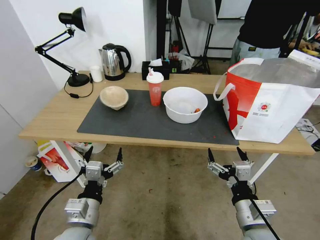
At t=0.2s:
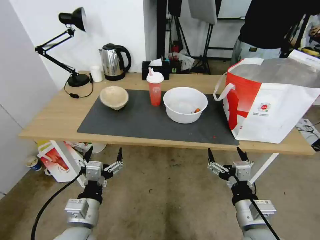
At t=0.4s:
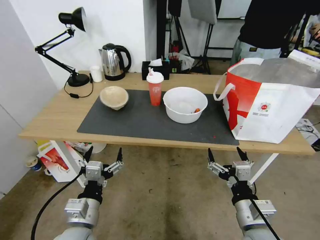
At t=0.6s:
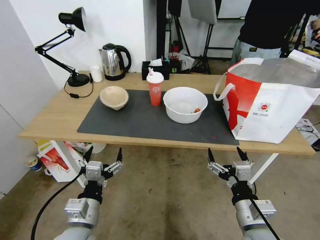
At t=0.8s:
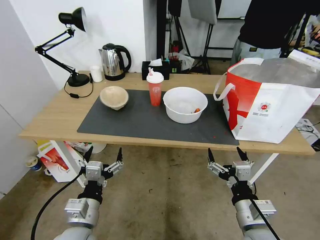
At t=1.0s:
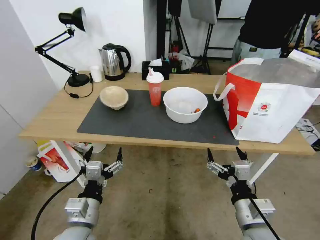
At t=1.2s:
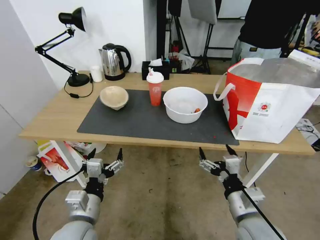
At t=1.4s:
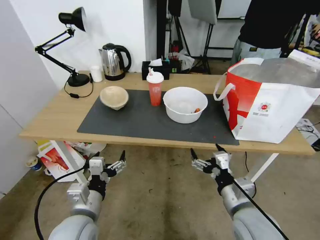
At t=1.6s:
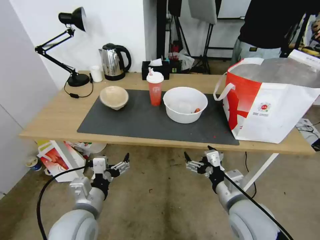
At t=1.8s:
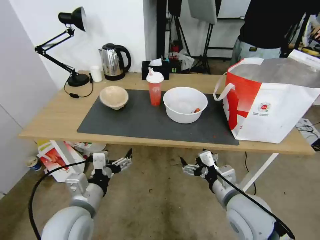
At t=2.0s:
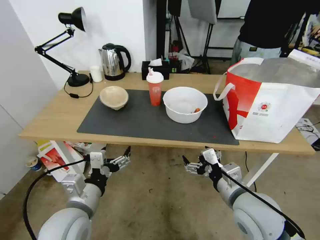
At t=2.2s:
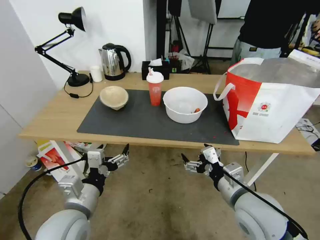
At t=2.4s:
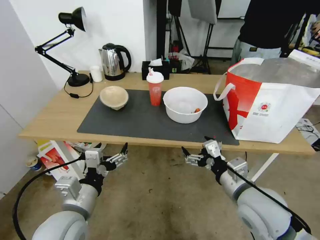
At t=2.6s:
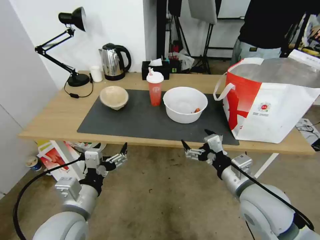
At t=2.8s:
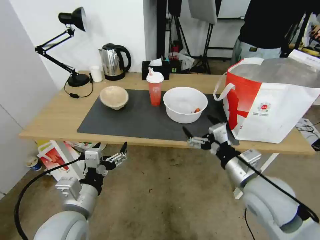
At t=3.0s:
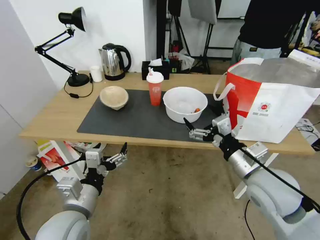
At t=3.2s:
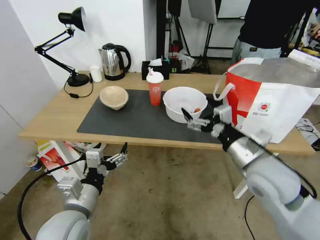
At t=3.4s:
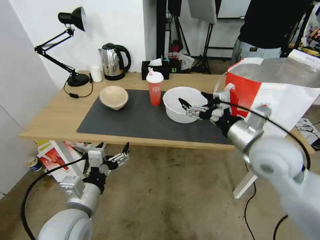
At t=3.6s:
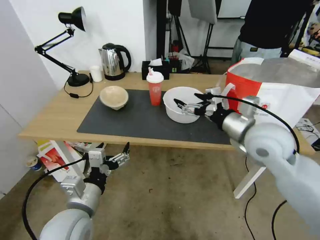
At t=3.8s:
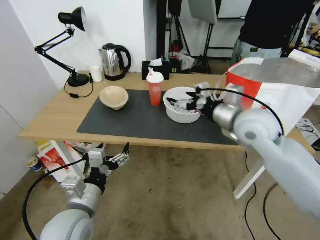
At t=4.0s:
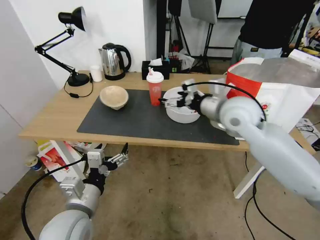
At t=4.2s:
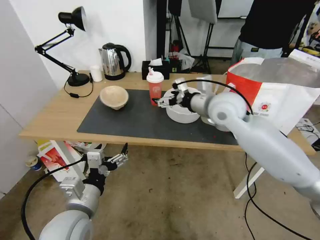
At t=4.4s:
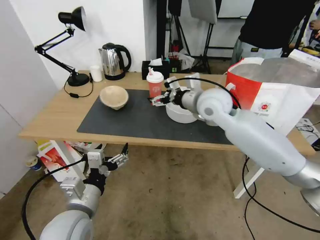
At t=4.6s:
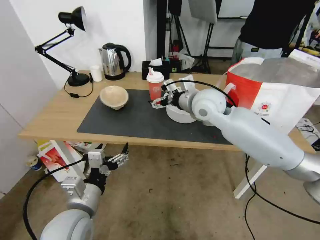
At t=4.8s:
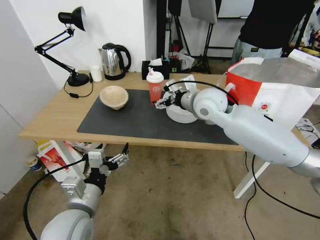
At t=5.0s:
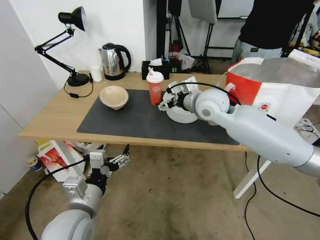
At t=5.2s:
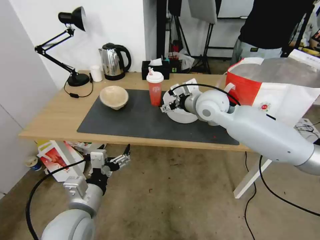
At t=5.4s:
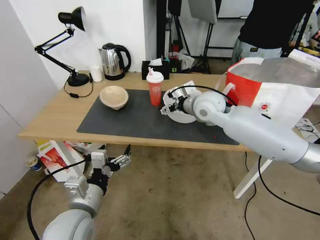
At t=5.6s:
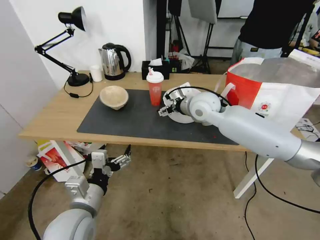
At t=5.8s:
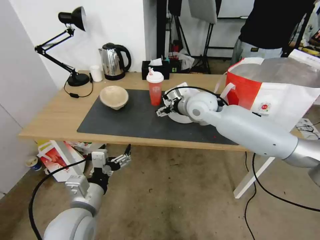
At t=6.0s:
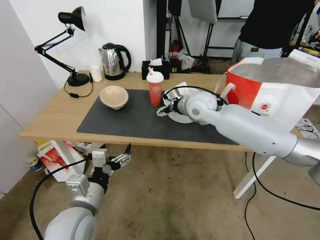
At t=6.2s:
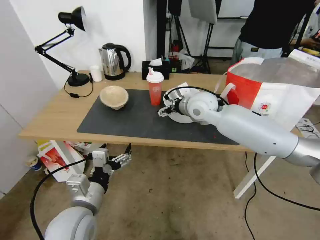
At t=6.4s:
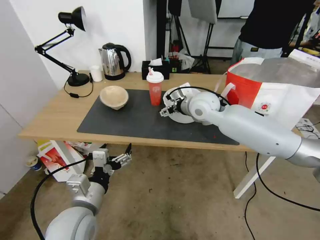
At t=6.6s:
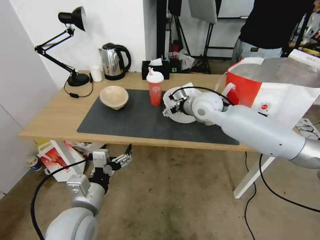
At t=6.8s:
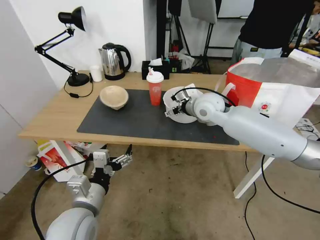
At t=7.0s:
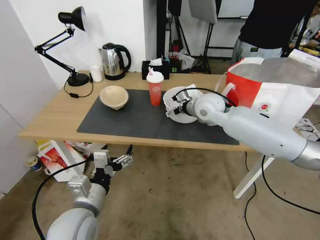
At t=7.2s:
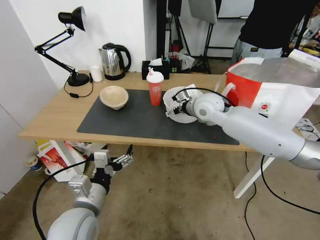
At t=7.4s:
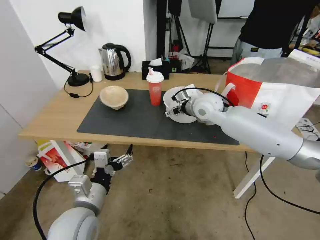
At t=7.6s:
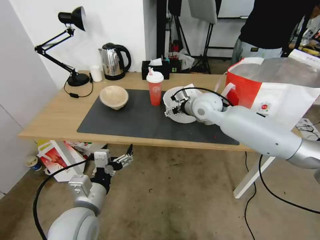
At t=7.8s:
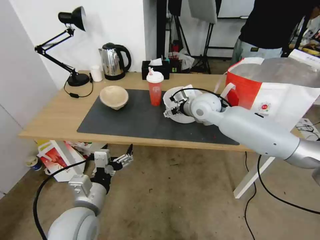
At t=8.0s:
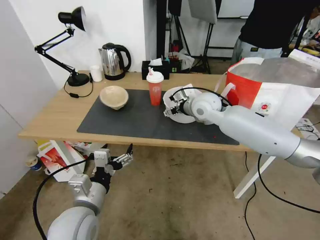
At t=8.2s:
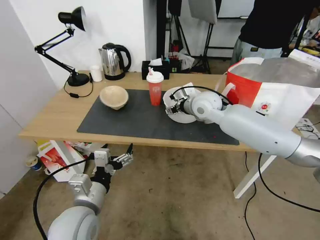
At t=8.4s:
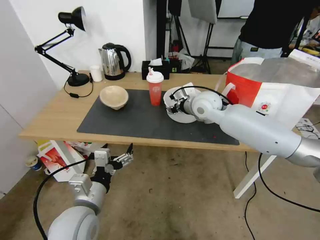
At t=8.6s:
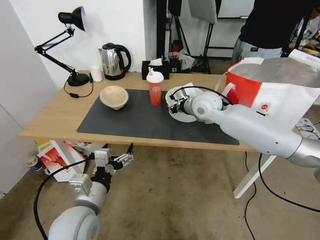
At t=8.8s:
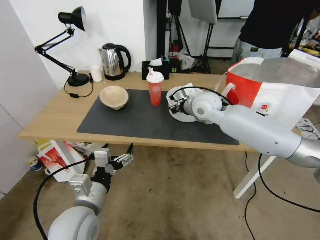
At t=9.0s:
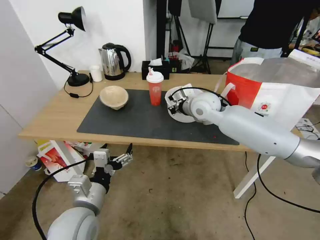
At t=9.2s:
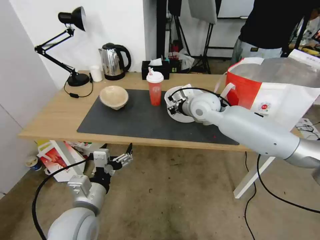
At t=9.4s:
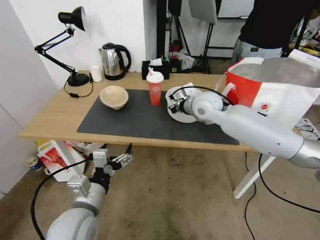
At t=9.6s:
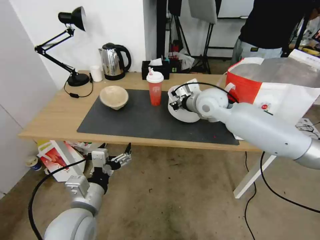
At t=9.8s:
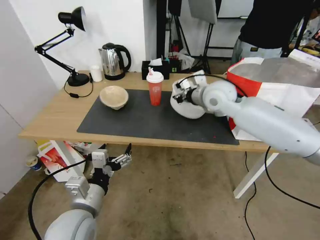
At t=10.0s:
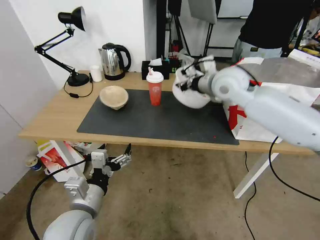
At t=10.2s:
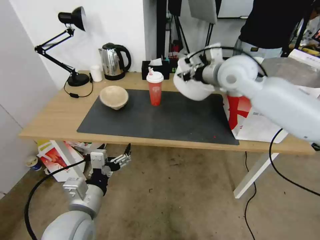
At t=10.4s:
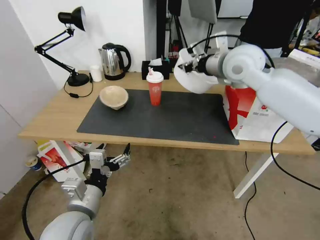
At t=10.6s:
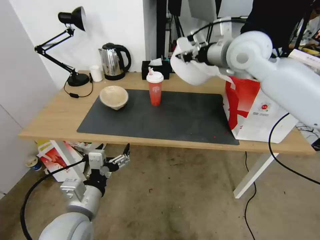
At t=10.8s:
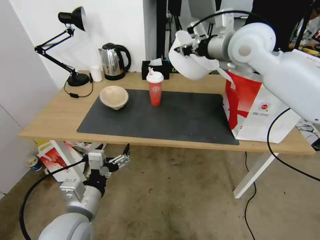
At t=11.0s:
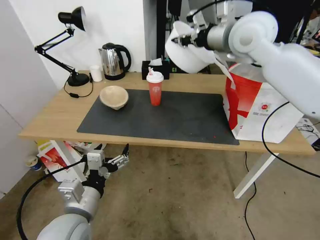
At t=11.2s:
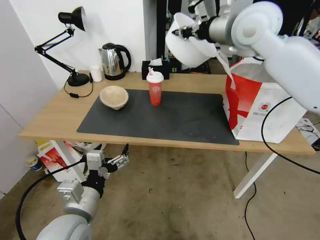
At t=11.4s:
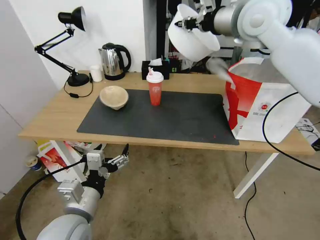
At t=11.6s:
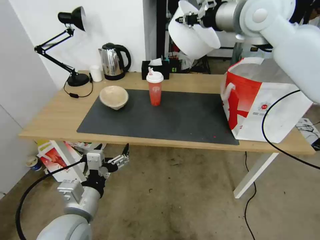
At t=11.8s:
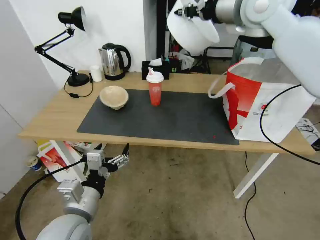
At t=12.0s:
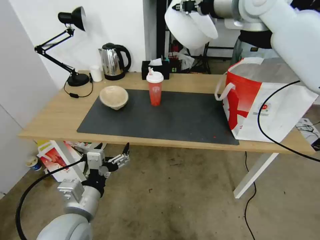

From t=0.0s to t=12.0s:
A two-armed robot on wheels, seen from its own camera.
Task of the whole recording: Pick up the trash from the table and place it into the takeout bag.
From t=1.6s to t=3.0s: The right gripper is displaced upward by some 5 cm.
From t=3.0s to t=4.4s: The right gripper heads forward, to the left and upward, covering some 25 cm.
From t=4.4s to t=6.0s: The right gripper moves approximately 5 cm.
From t=6.0s to t=7.6s: The grippers move only a little.
From t=7.6s to t=9.0s: The right gripper closes up.
From t=9.0s to t=10.4s: The right gripper travels upward by approximately 15 cm.
From t=10.4s to t=12.0s: The right gripper heads upward, covering roughly 15 cm.

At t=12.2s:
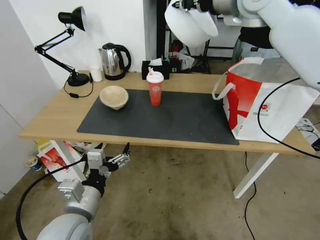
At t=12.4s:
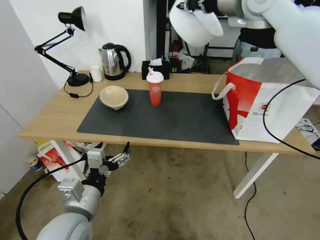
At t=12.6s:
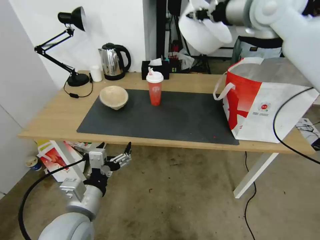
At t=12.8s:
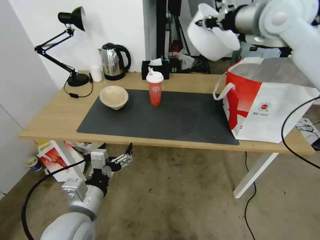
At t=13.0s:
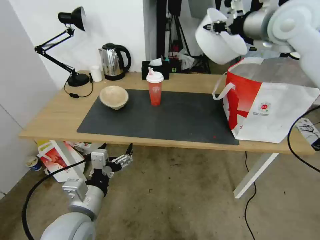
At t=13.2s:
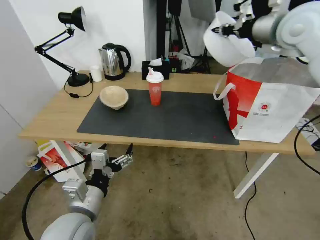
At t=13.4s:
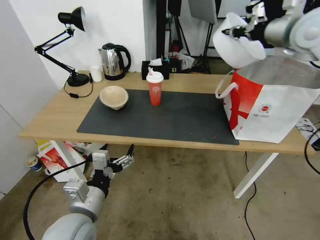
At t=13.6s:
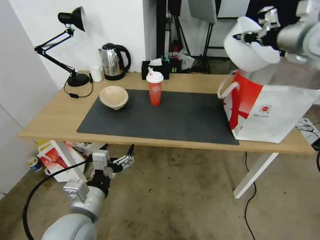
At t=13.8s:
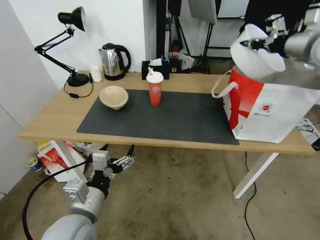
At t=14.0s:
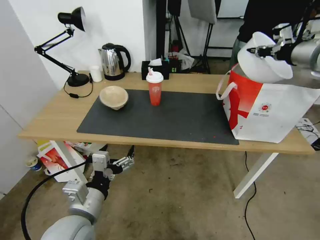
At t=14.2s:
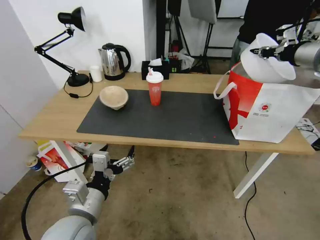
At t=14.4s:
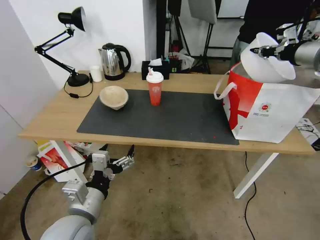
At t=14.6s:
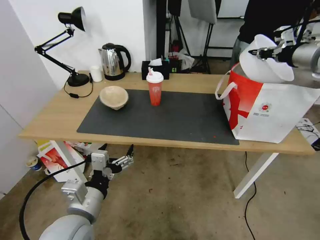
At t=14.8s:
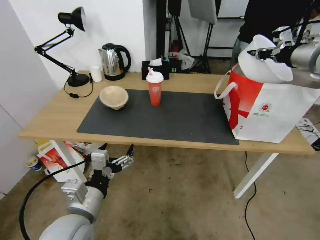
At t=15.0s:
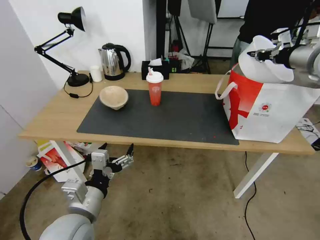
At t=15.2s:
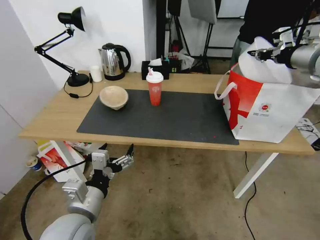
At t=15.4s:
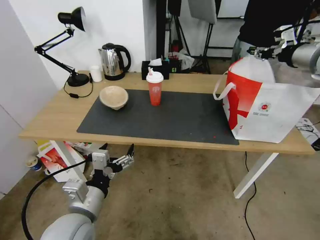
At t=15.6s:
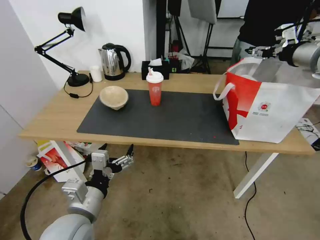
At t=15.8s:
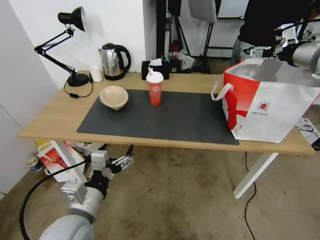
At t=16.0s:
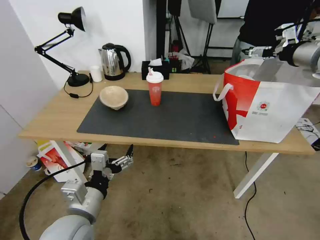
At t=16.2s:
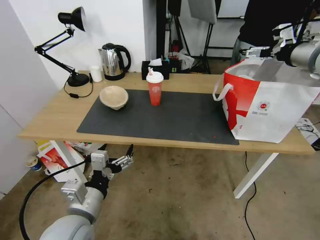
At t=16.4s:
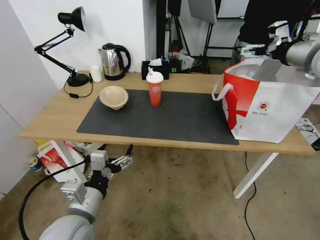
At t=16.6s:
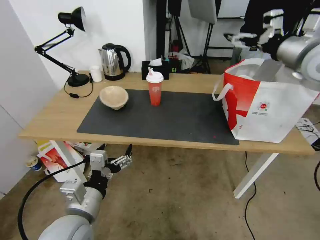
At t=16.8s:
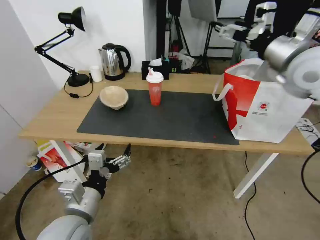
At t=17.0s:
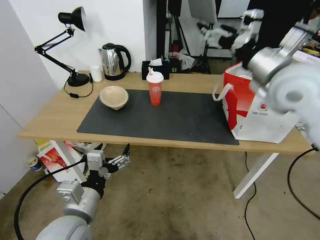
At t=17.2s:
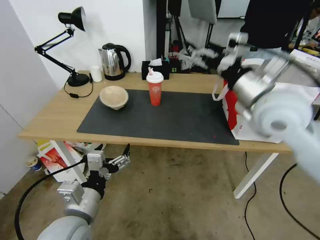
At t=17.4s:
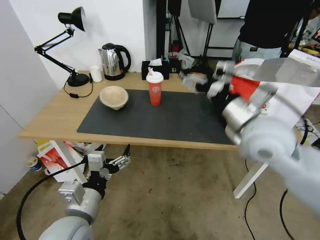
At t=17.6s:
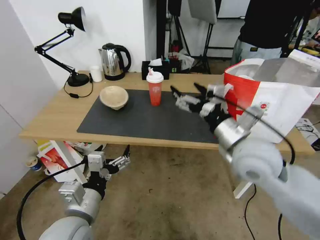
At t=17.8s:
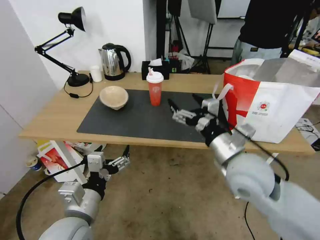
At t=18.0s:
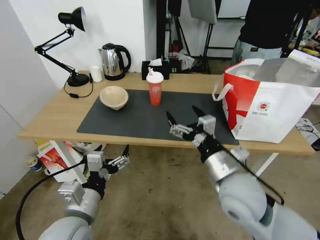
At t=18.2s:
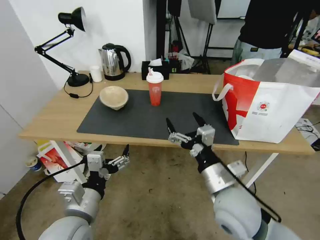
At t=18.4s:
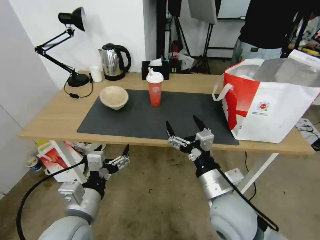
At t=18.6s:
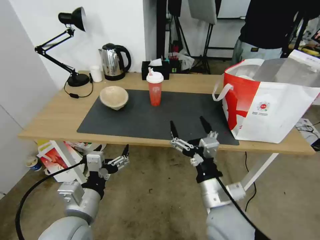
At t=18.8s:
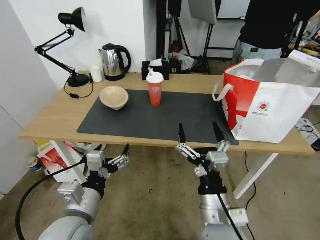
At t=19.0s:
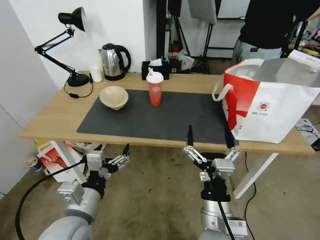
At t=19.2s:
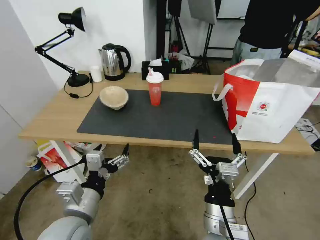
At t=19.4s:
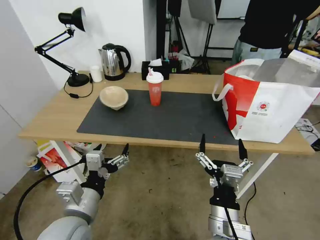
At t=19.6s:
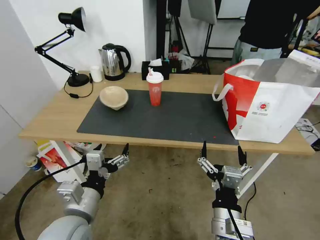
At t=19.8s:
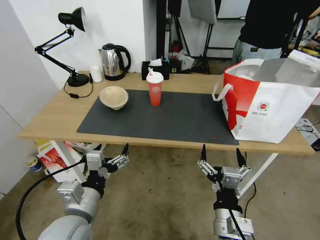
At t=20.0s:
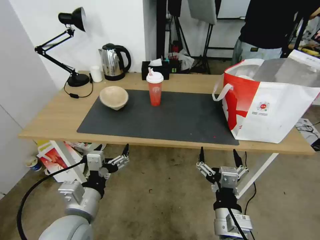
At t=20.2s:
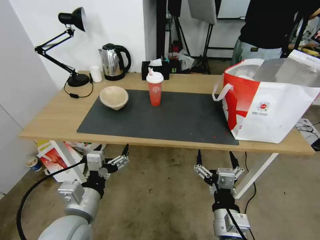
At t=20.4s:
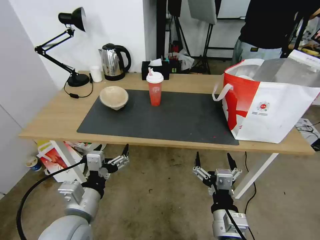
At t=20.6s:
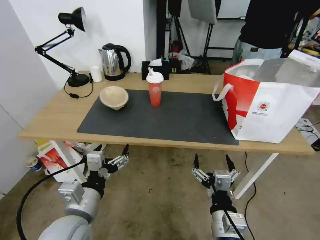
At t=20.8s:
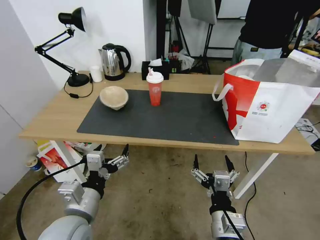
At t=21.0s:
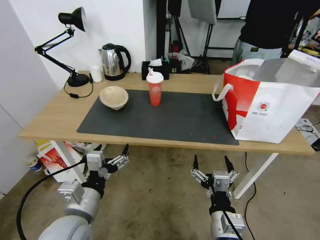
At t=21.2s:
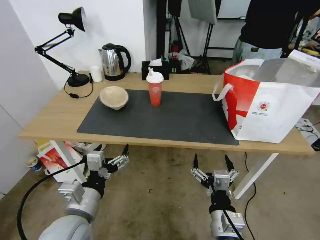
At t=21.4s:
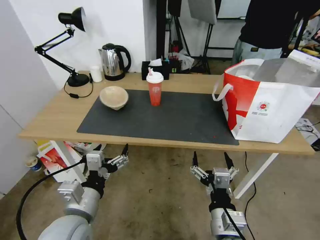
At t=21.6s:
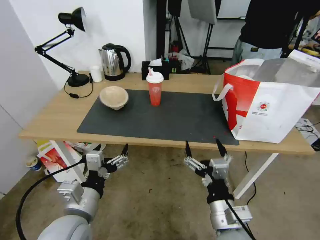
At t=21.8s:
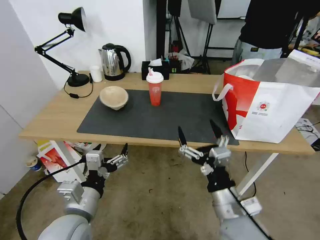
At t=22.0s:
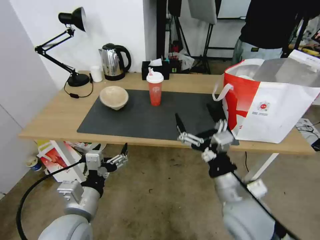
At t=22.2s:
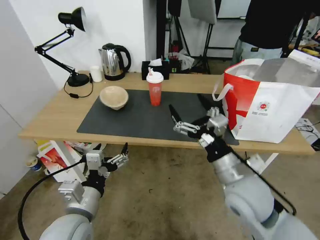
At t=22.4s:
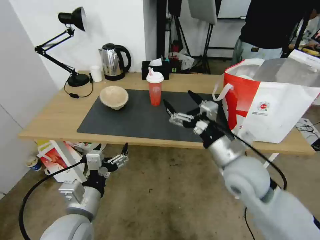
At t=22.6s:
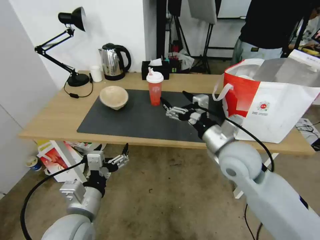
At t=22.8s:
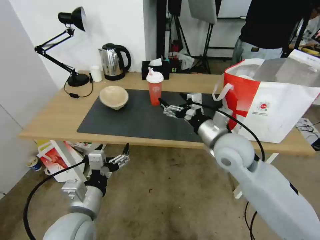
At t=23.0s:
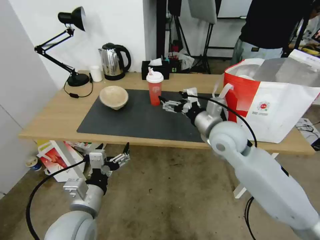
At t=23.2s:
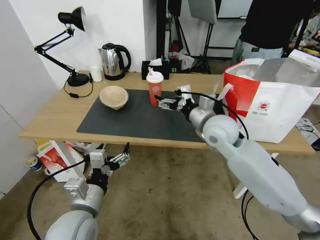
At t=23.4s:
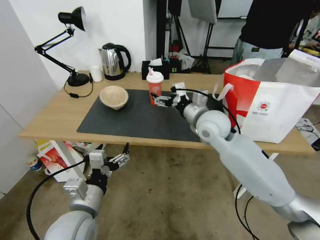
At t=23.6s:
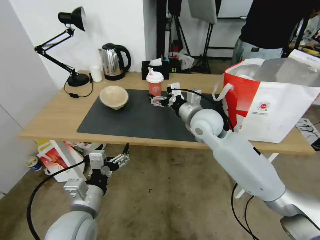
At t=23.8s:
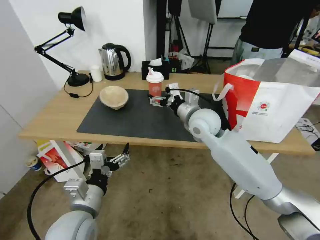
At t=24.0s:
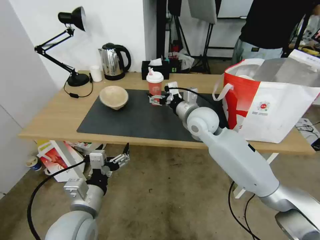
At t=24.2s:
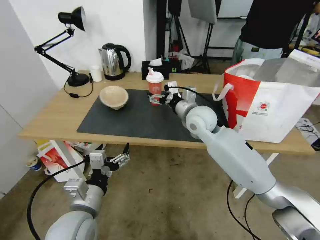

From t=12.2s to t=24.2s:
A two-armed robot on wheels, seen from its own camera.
Task of the whole recording: Pick up the trash from the table and place it into the takeout bag.
From t=12.2s to t=13.8s: The right gripper shifts about 20 cm to the right and downward.
From t=13.8s to t=15.2s: There are only small adjustments of the grippers.
From t=15.2s to t=16.6s: The right gripper shifts some 5 cm to the left, and opens.
From t=16.6s to t=18.2s: The right gripper moves downward, backward and to the left, approximately 40 cm.
From t=18.2s to t=19.8s: The right gripper travels backward and downward by some 10 cm.
From t=19.8s to t=21.2s: The grippers make only small movements.
From t=21.2s to t=22.6s: The right gripper goes roughly 20 cm forward and upward.
From t=22.6s to t=24.2s: The right gripper heads forward and to the left, covering some 15 cm.
